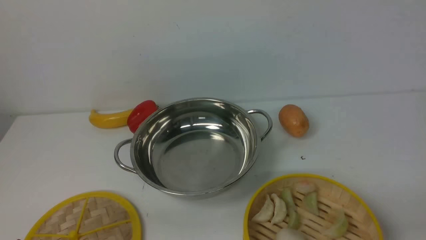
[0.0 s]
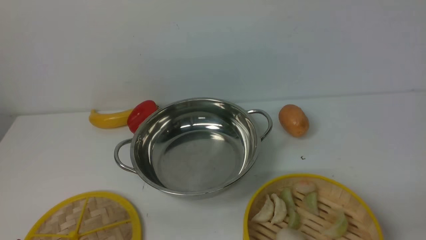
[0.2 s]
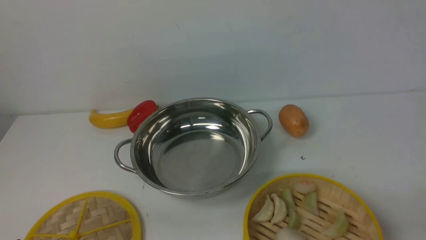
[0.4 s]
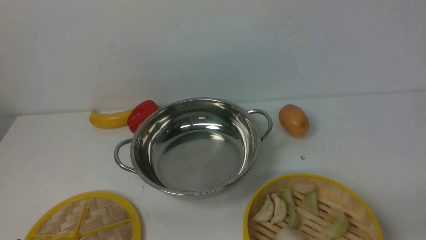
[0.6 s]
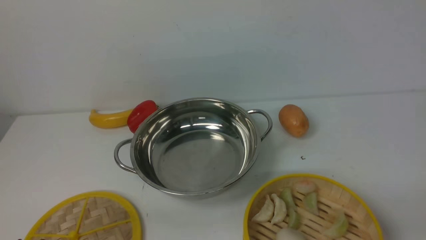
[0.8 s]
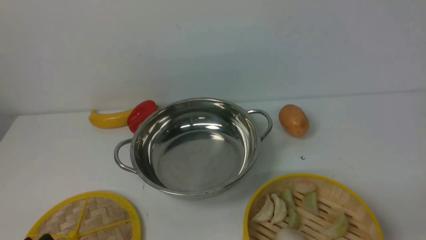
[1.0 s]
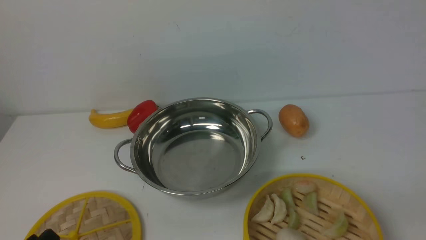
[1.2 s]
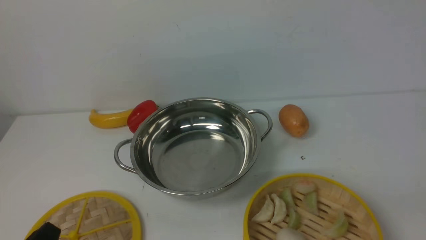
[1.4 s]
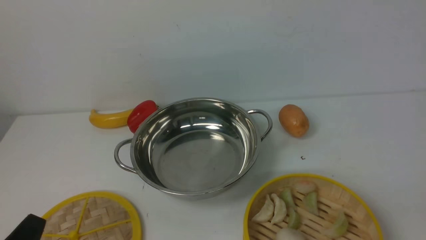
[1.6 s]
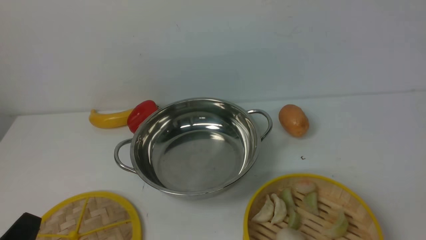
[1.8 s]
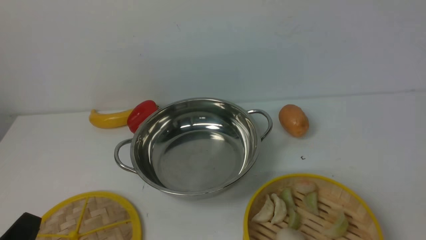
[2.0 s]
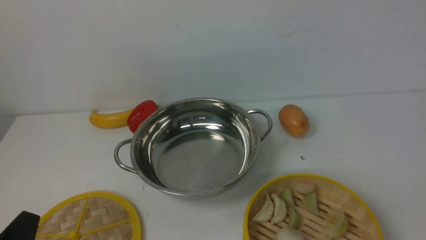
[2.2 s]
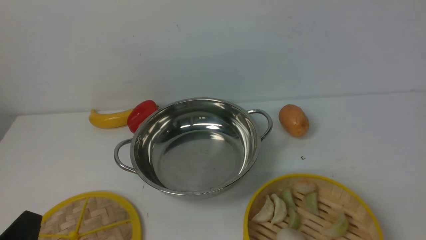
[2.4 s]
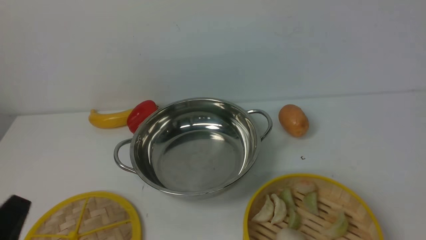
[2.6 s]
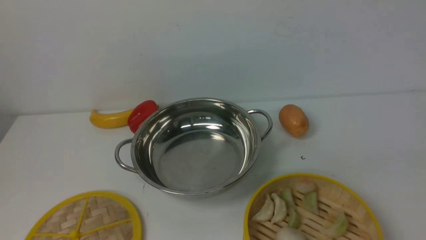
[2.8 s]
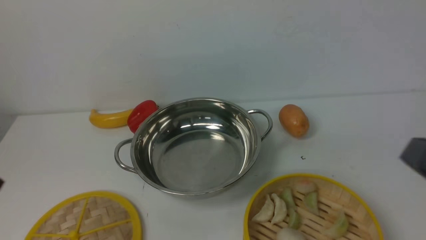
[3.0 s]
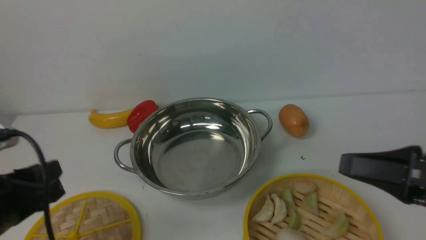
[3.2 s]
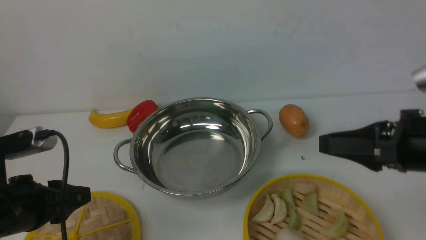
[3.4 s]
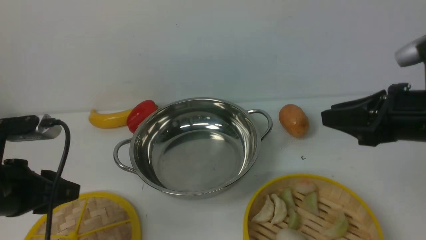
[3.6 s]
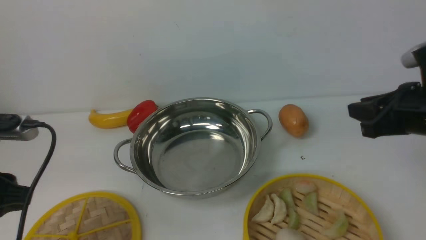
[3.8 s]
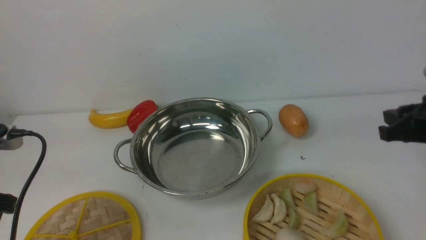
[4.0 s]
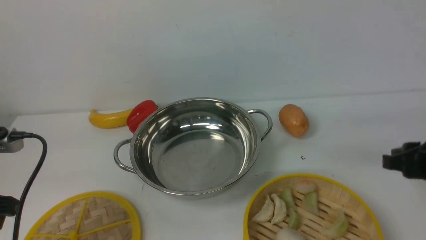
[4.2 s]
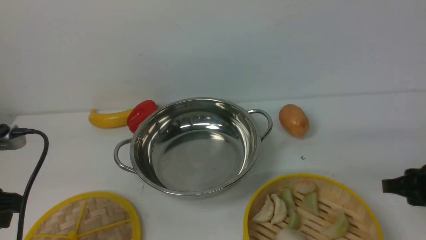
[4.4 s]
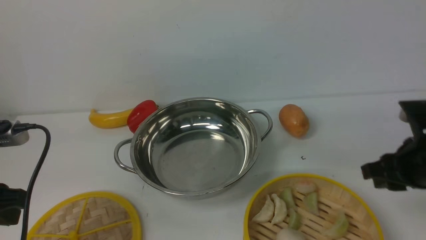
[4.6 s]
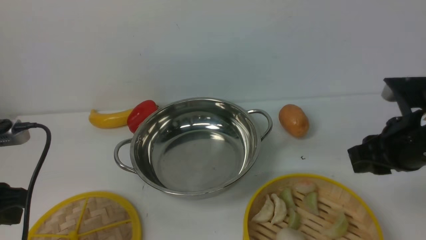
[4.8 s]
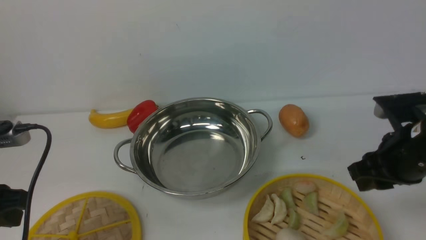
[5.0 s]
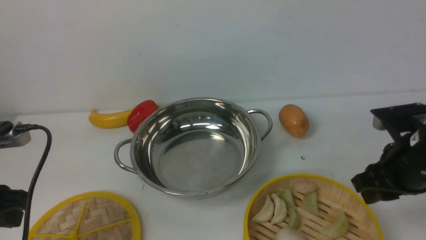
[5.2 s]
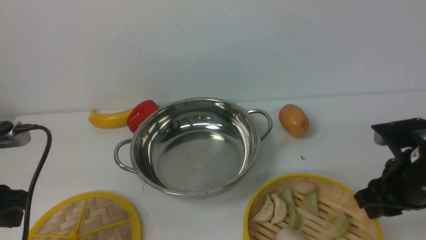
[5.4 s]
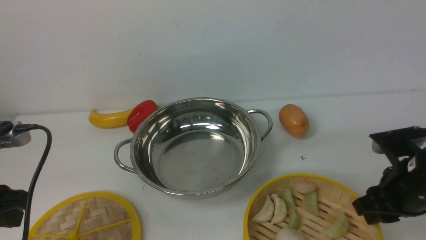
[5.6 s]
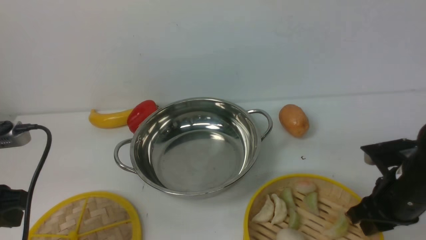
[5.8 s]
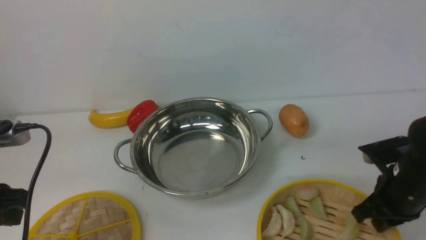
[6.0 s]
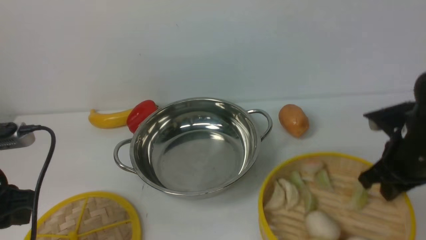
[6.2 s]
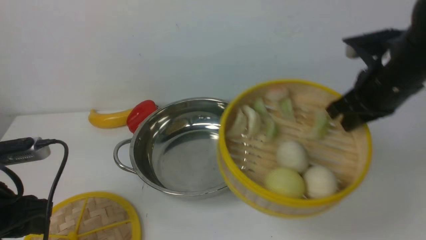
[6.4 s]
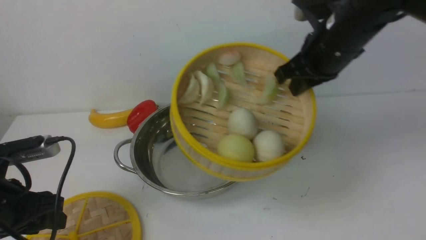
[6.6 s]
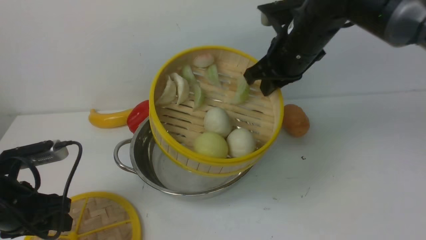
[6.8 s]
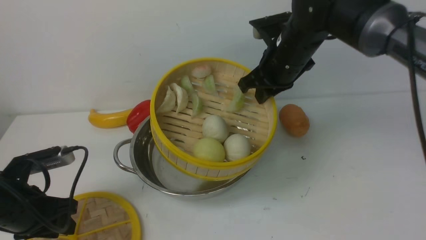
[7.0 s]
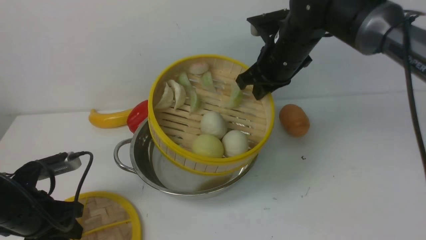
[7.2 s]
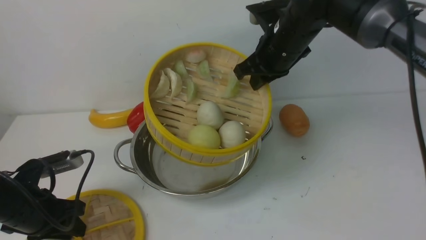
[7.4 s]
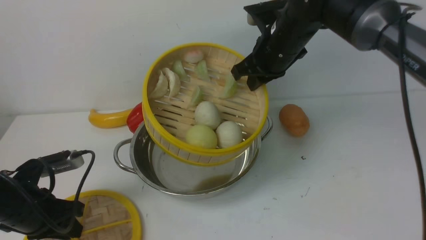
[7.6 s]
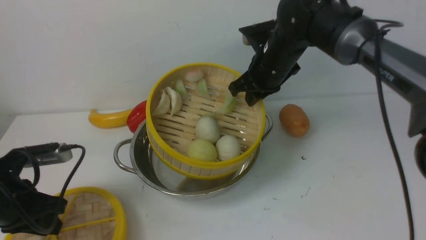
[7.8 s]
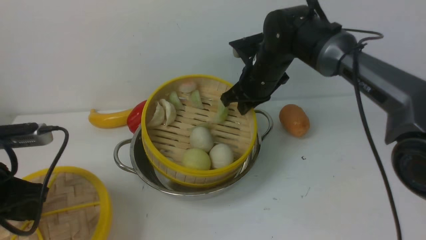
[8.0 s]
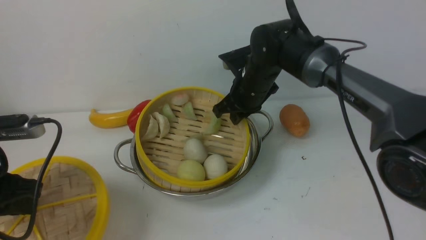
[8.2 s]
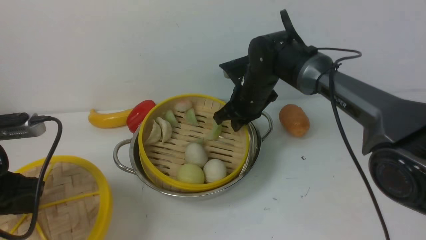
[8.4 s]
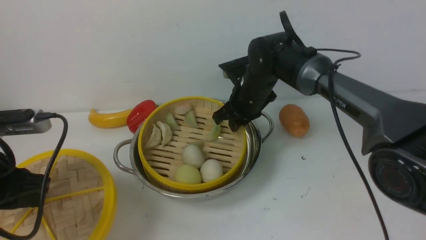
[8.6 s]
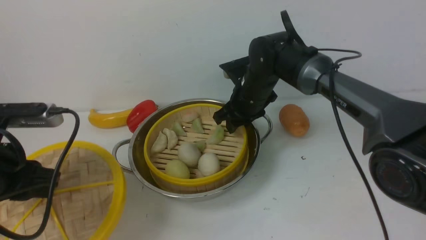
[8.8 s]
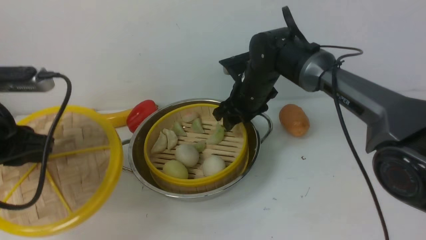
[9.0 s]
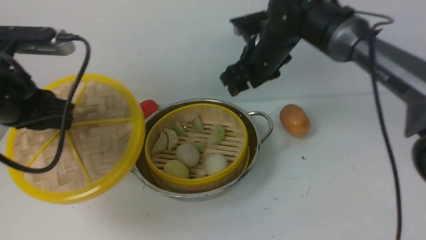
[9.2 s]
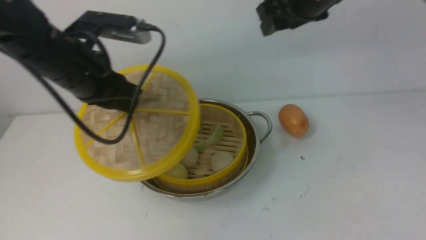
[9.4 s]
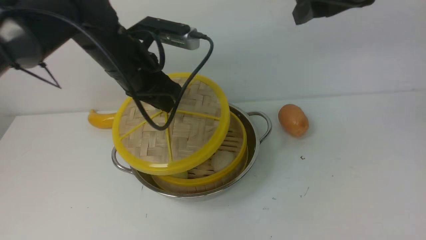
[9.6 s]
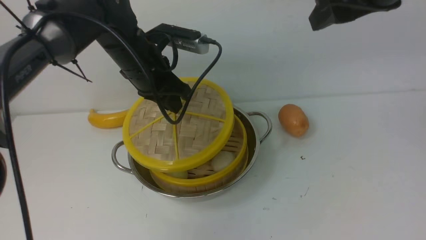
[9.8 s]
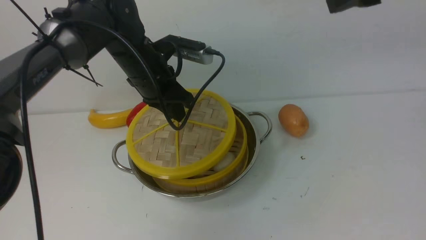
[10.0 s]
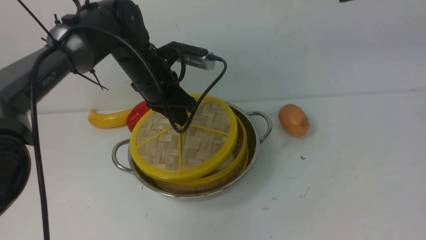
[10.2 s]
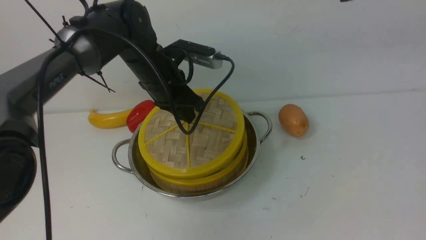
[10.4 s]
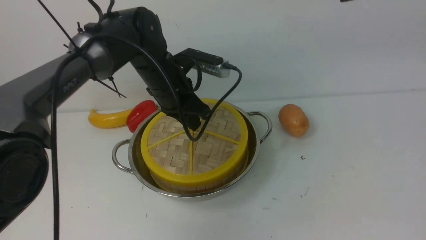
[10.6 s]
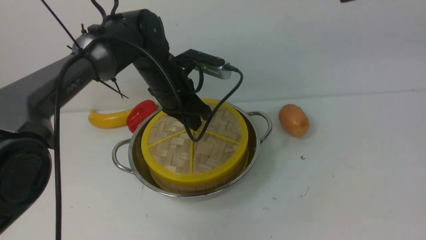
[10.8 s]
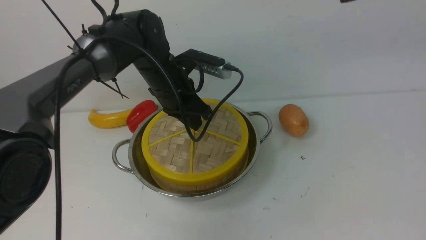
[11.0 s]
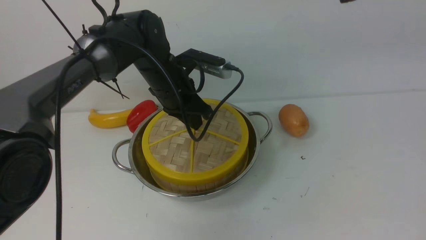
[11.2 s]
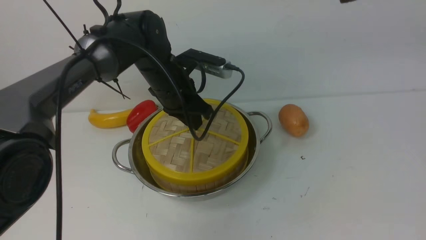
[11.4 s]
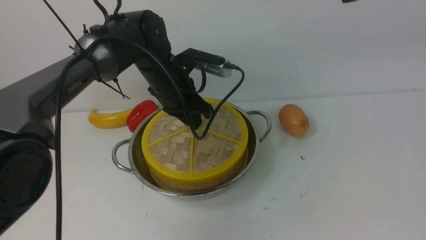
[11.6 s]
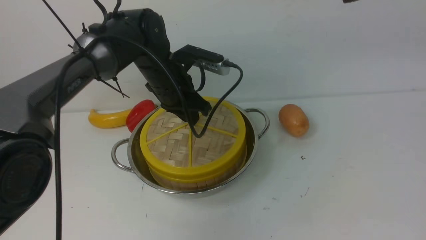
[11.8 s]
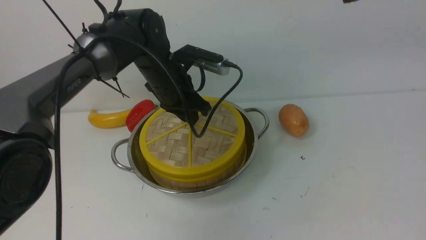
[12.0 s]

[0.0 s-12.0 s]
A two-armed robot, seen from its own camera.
Task of the whole recording: place the steamer in the pot on the white table, and put the lid on the steamer.
Step, 0.0 to 6.4 s: use the right arm to lift the steamer closest to it.
Step, 6.6 to 9.0 s: use the right arm to put the steamer into the iron steamer pot in the middle.
Step, 9.2 to 9.4 s: use the left arm to lift the lid of the steamer.
1.6 to 3.0 s: The left gripper heads upward, covering some 10 cm. Meanwhile the right gripper moves forward and upward, some 10 cm.
3.0 to 4.4 s: The left gripper goes some 10 cm forward and to the left, while the right gripper goes approximately 20 cm forward and downward.
4.4 to 6.0 s: The right gripper shifts by roughly 5 cm.
6.0 to 7.6 s: The left gripper goes about 10 cm downward and forward. The right gripper is displaced forward, to the left and upward by some 25 cm.
7.6 to 9.0 s: The right gripper heads downward, covering some 5 cm, and opens its fingers, while the left gripper moves upward, some 15 cm.
9.0 to 10.4 s: The right gripper moves upward, backward and to the right, approximately 35 cm, while the left gripper is displaced forward and to the right by some 25 cm.
10.4 to 12.0 s: The grippers move only a little.

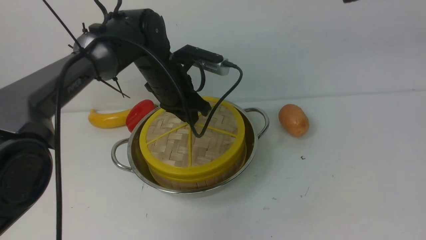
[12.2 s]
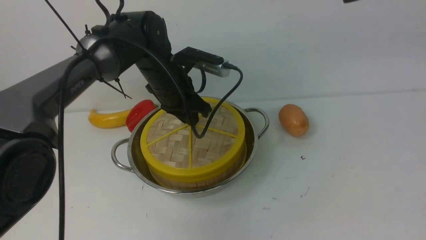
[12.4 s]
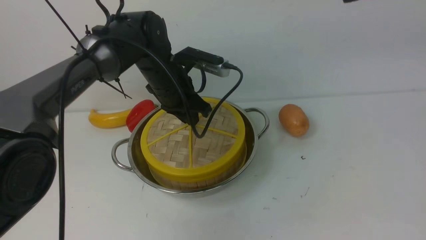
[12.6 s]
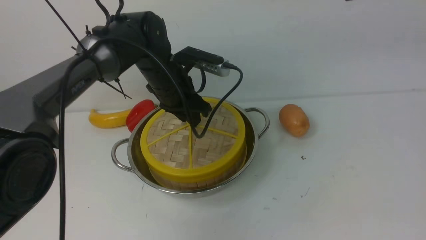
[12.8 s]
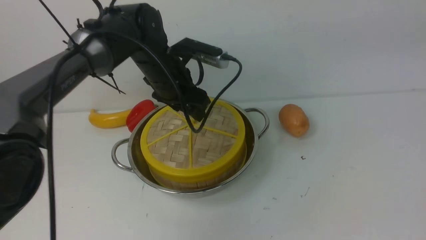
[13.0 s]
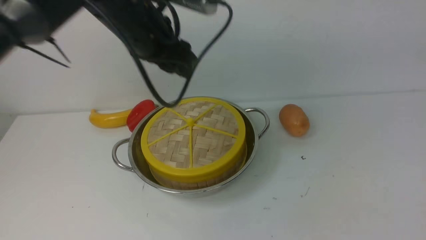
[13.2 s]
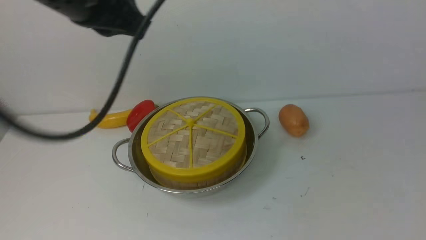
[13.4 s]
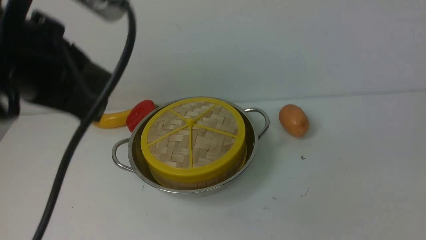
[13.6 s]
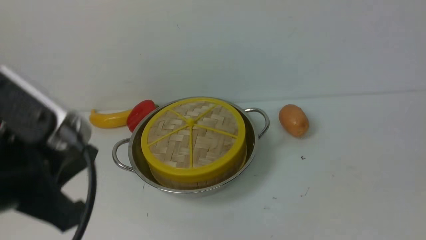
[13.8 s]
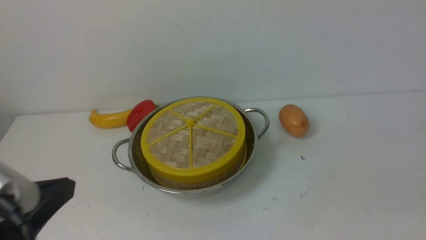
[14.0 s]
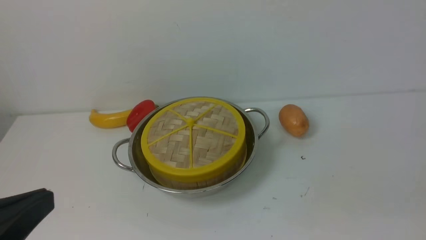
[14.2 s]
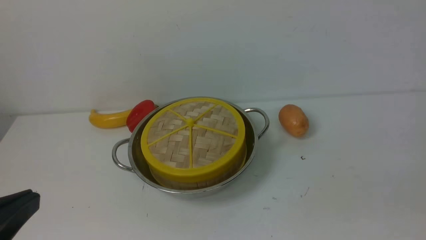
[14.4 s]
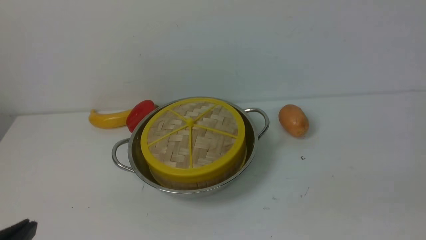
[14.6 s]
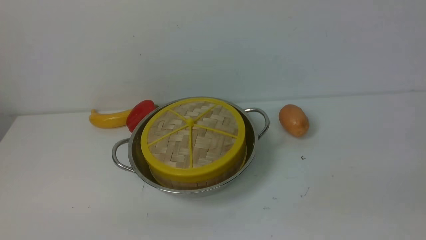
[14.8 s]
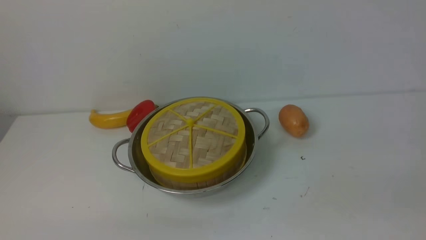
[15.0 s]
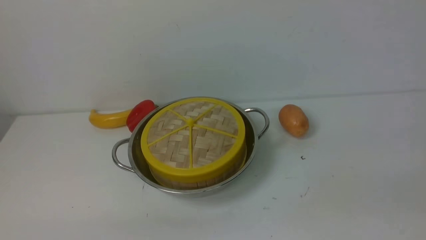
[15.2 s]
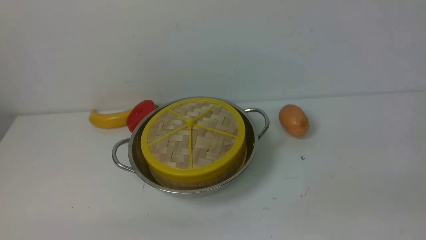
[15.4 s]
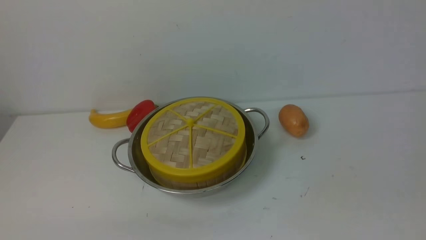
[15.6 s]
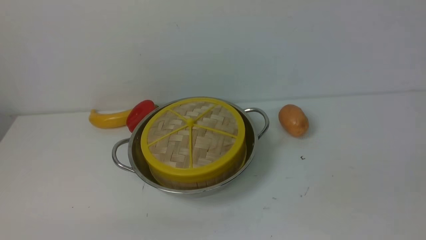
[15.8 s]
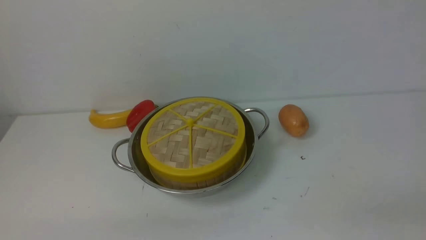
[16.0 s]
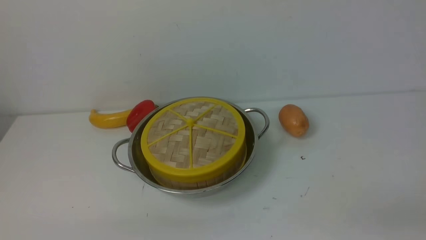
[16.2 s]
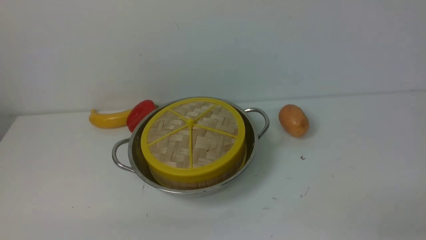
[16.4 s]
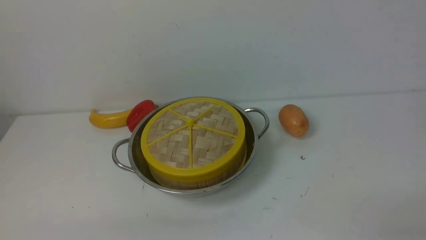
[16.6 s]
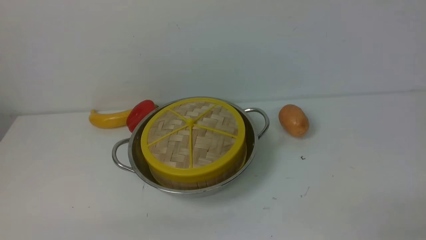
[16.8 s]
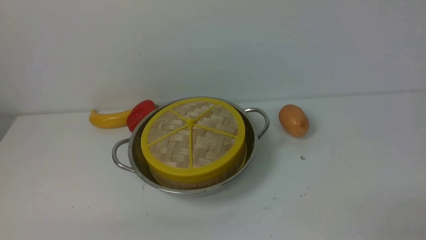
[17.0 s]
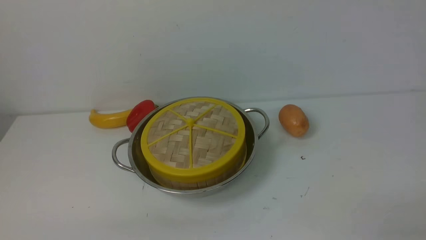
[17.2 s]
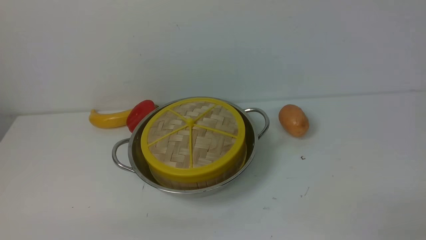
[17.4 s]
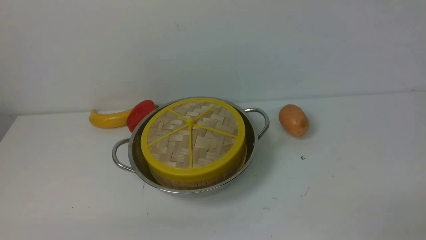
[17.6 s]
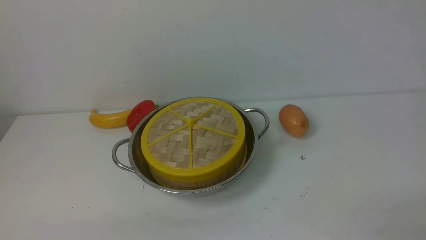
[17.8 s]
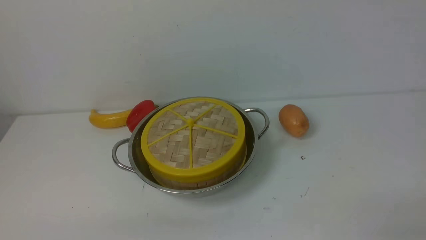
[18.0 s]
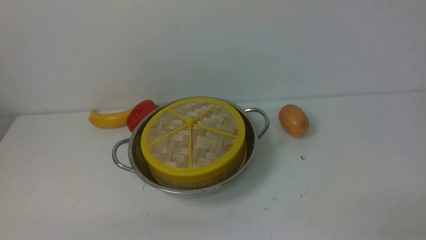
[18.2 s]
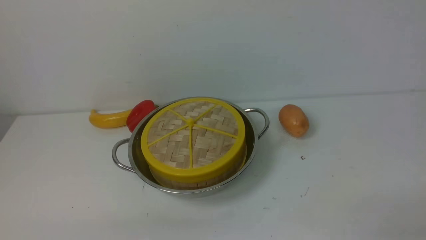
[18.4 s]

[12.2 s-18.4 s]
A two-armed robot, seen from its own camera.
Task of the whole recording: place the steamer in the pot on the white table, and put the lid on the steamer.
12.2 to 13.8 s: The right gripper shifts some 25 cm backward, downward and to the right, and closes up. The left gripper moves backward and upward, approximately 35 cm, and closes up.
13.8 to 15.4 s: The left gripper shifts roughly 20 cm downward and backward.
16.8 to 18.4 s: Both grippers stay about where they are.
